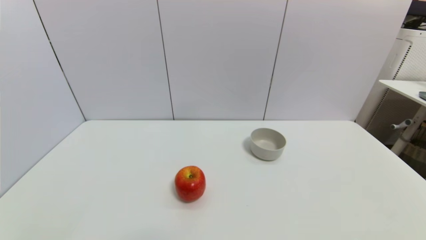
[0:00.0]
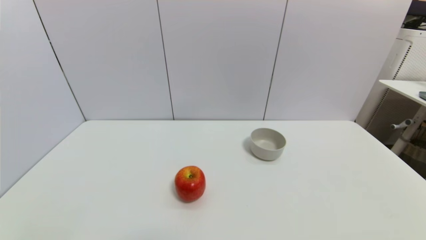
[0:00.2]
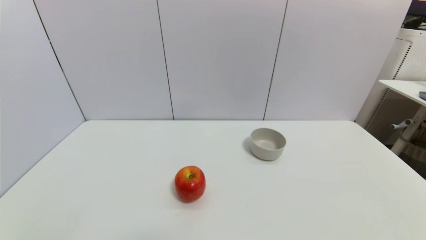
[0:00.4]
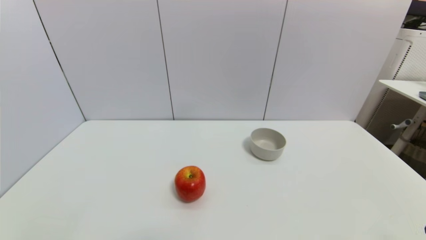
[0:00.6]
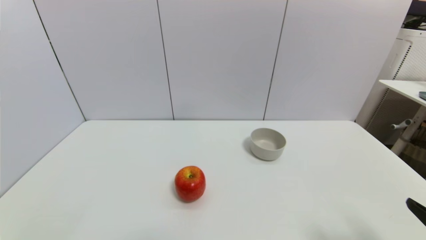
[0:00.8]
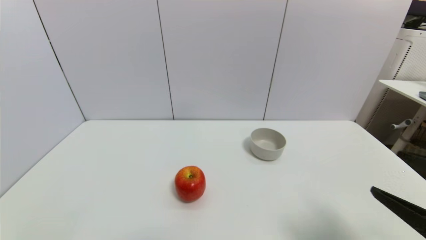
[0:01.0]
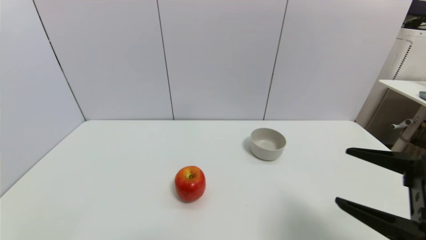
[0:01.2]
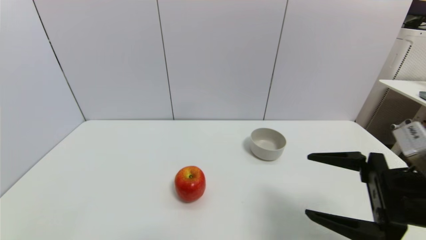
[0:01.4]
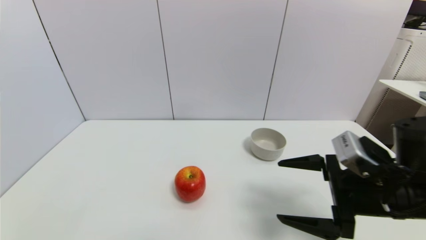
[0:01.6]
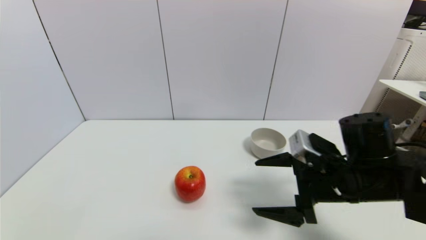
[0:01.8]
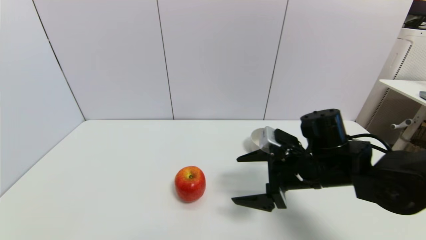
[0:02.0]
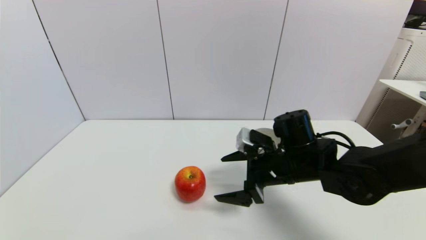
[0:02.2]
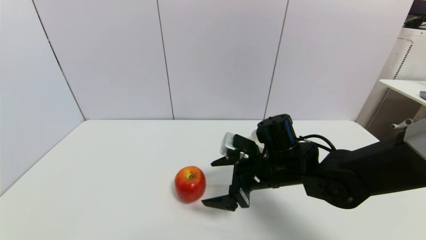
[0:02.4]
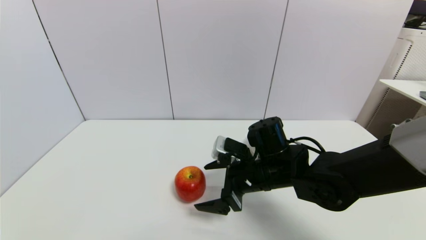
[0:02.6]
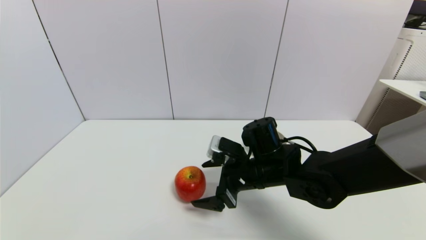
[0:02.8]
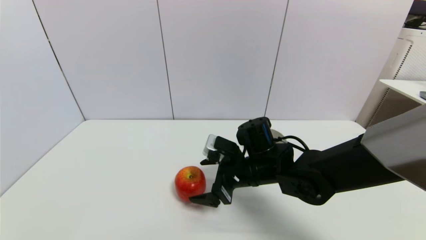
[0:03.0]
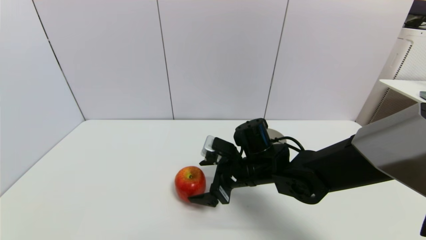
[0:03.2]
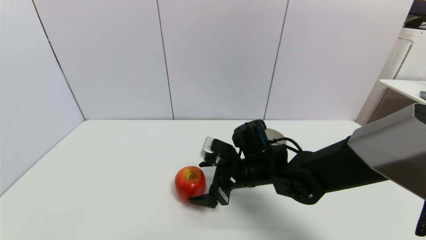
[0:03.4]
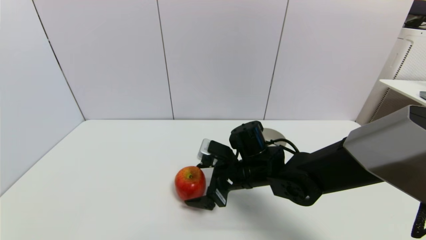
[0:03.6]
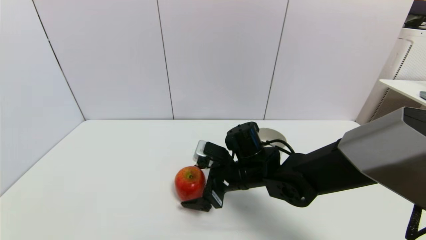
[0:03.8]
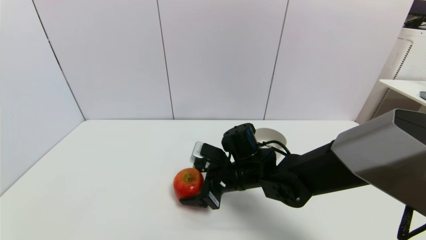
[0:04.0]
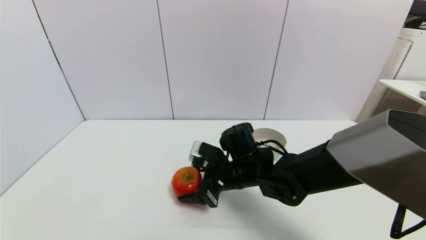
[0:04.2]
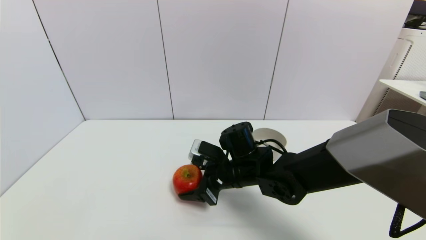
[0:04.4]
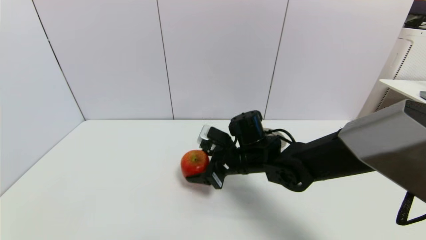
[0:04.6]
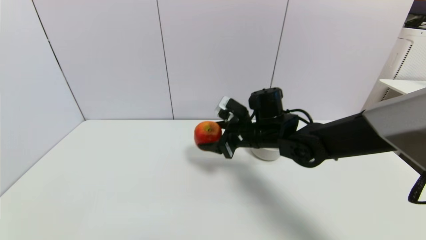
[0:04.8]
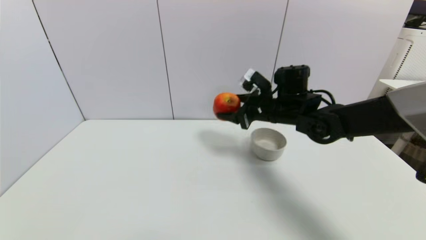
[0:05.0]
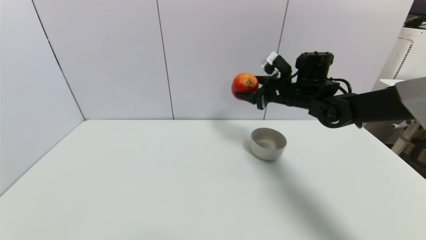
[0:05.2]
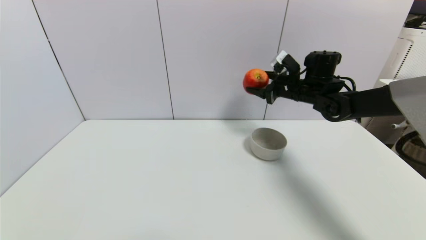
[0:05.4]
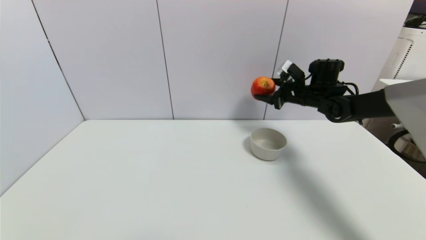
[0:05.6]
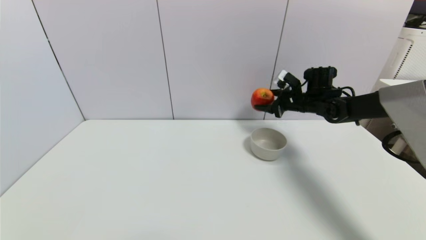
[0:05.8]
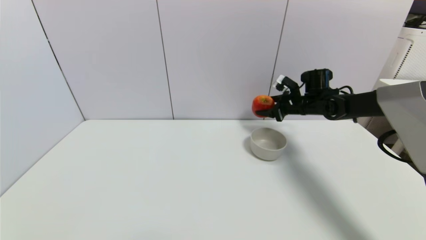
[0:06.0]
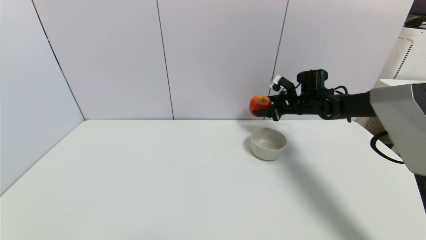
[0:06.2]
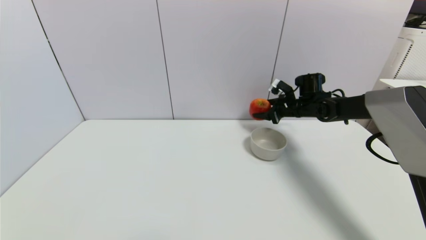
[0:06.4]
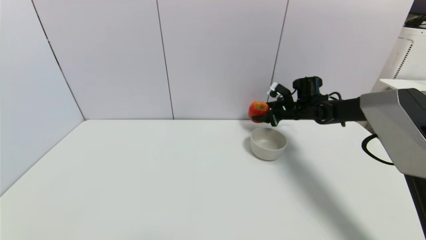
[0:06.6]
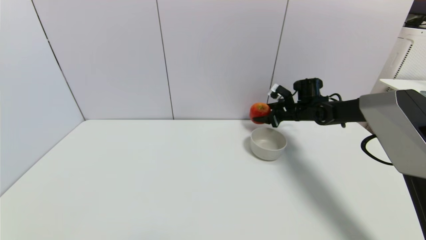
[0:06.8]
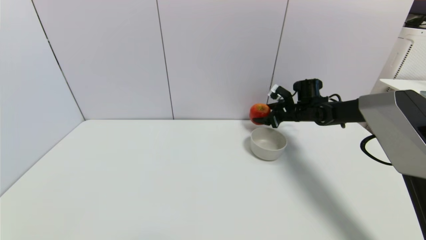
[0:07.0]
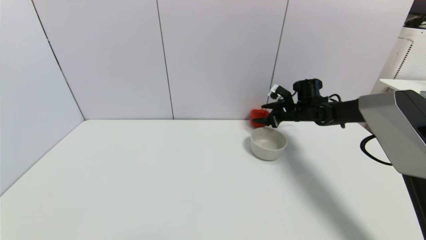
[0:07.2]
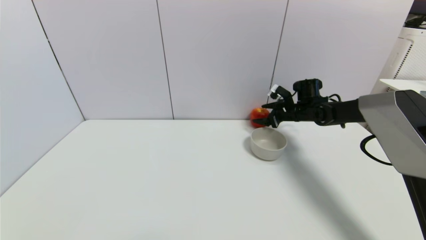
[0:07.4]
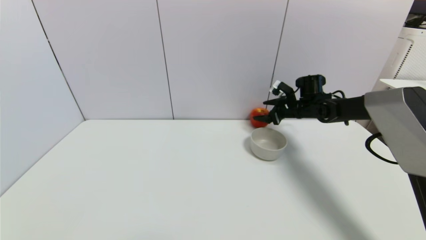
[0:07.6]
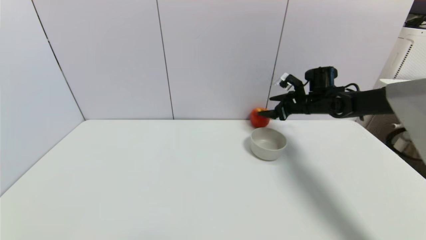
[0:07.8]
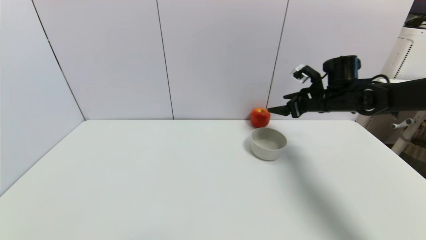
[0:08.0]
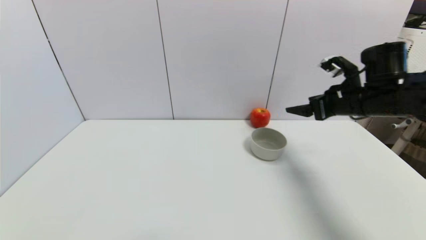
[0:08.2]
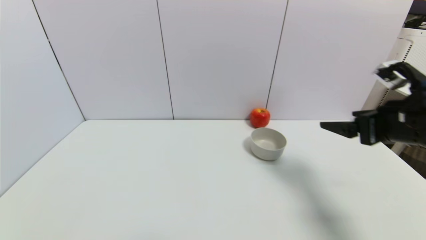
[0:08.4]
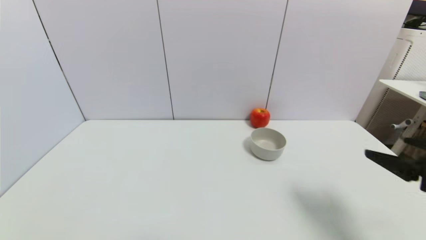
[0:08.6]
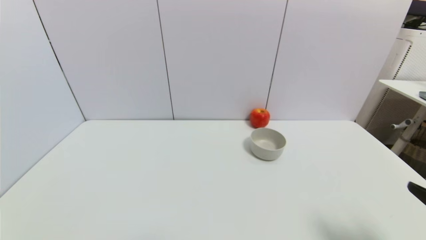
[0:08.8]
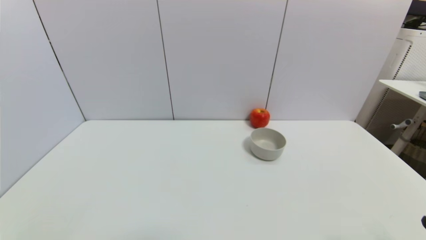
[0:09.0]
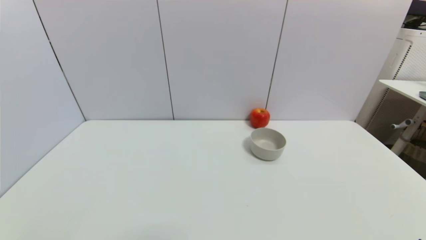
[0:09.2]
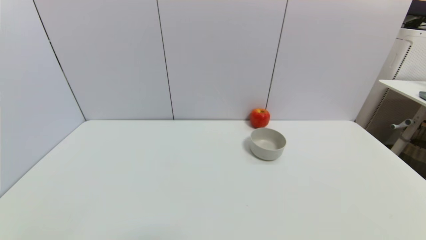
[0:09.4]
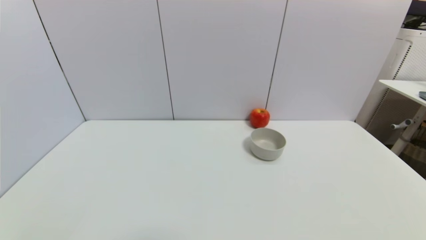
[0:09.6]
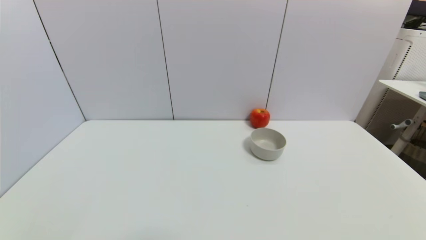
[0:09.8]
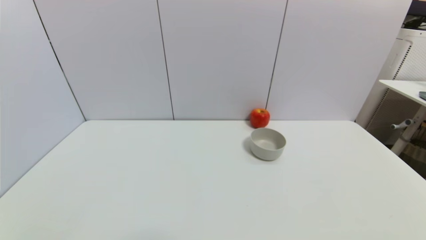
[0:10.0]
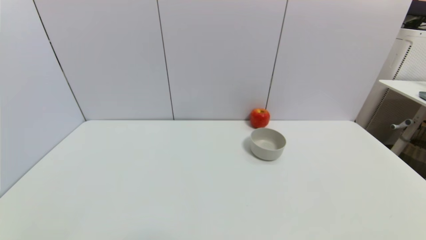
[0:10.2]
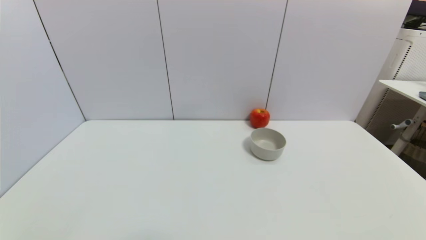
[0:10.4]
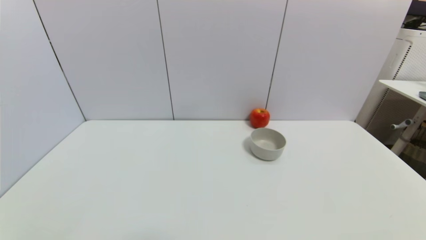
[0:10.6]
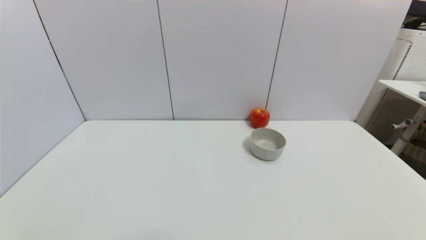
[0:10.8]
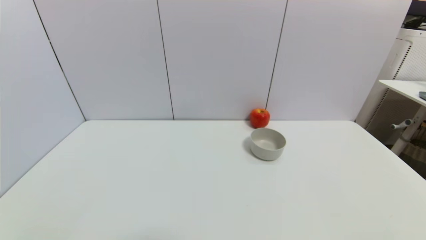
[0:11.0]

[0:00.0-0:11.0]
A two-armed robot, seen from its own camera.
Task of the whole recording: put the apple in the designated position.
Step, 0:00.0 to 0:04.4: Grasp the apple with right gripper.
Step, 0:04.6 to 0:08.2: Place the apple on the table with right gripper.
0:00.0 to 0:01.6: The right gripper is displaced forward, to the left and upward by roughly 25 cm.
0:01.6 to 0:03.2: The right gripper is displaced to the left, forward and downward by about 20 cm.
0:03.2 to 0:04.8: The right gripper is displaced forward and upward by about 10 cm, and closes its fingers.
0:04.8 to 0:06.2: The right gripper shifts roughly 20 cm to the right and forward.
0:06.2 to 0:07.8: The right gripper opens its fingers.
0:07.8 to 0:09.4: The right gripper moves backward, about 50 cm.
